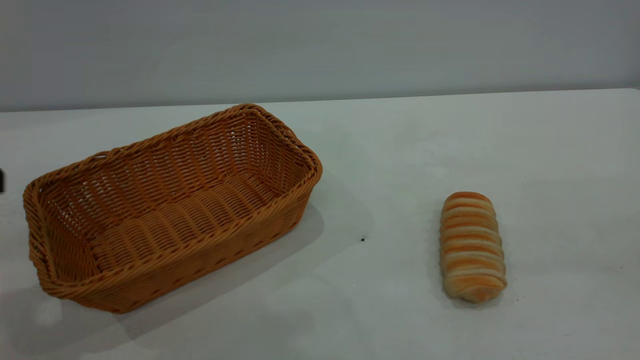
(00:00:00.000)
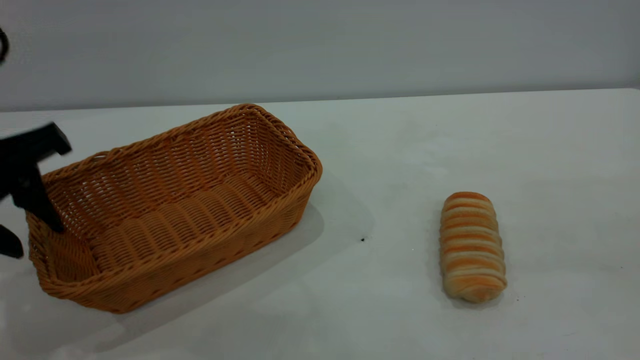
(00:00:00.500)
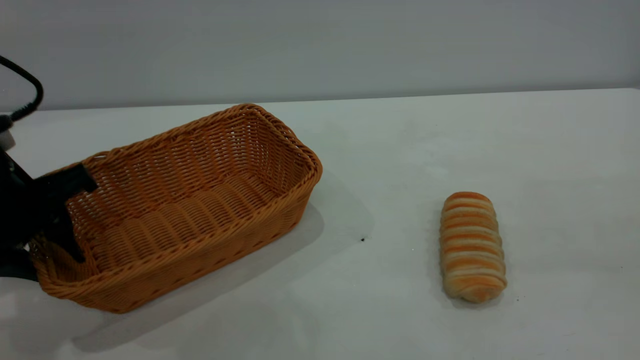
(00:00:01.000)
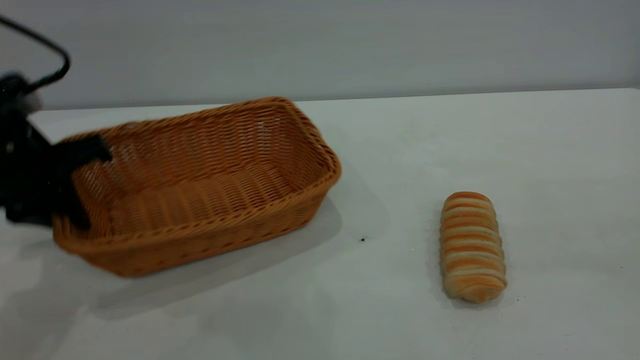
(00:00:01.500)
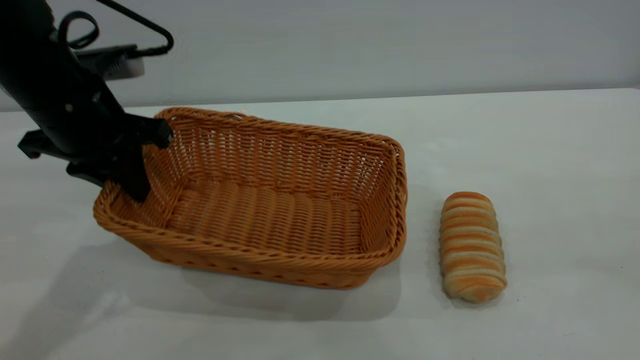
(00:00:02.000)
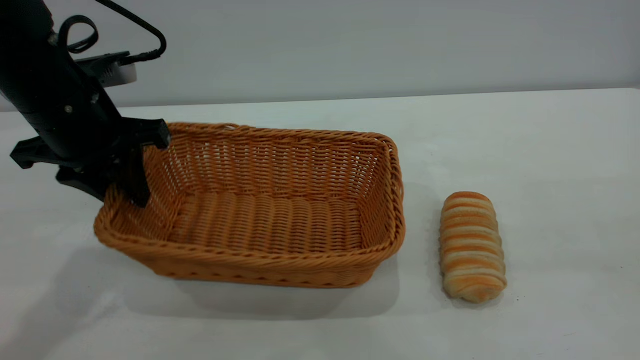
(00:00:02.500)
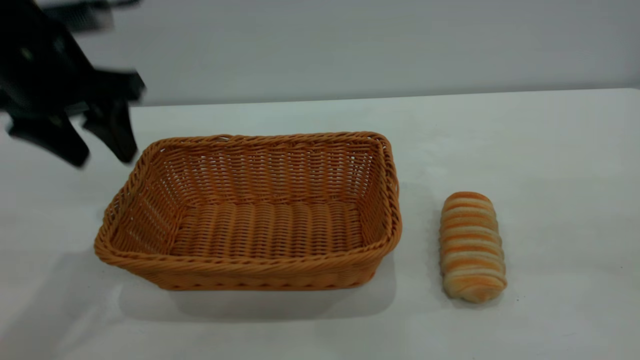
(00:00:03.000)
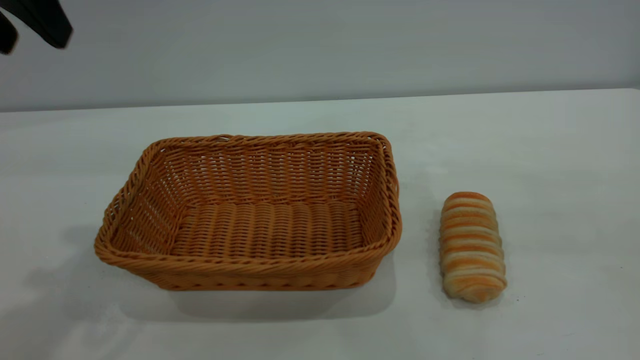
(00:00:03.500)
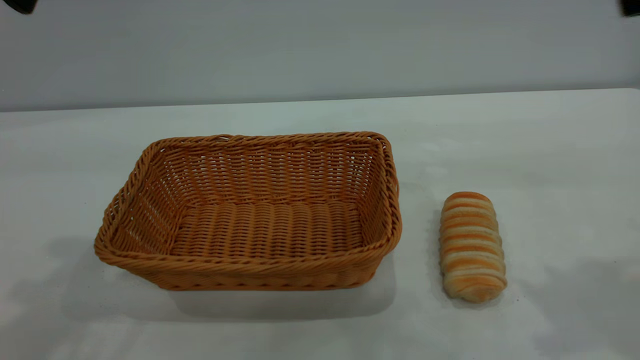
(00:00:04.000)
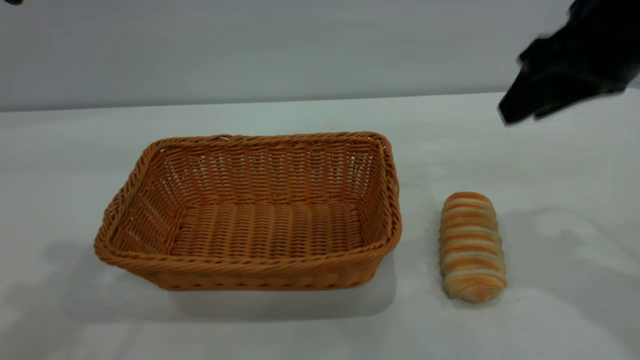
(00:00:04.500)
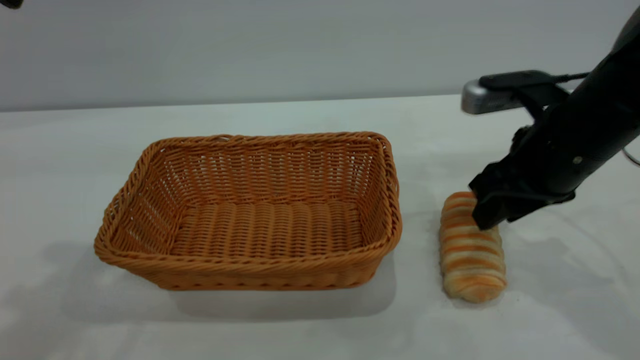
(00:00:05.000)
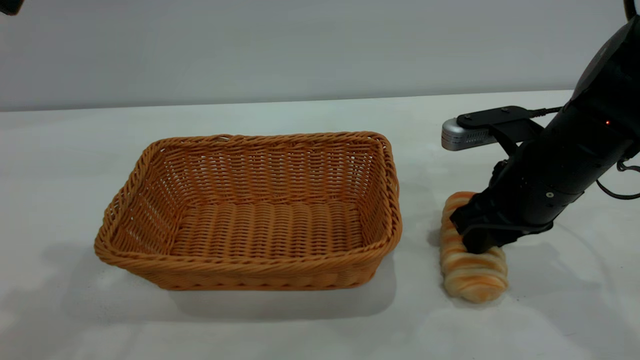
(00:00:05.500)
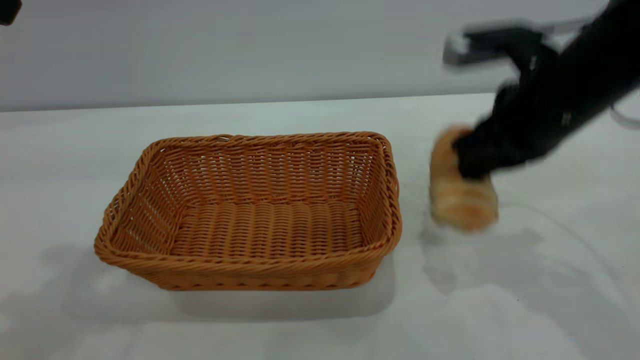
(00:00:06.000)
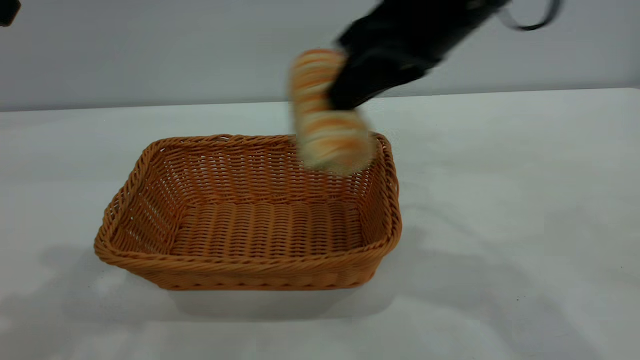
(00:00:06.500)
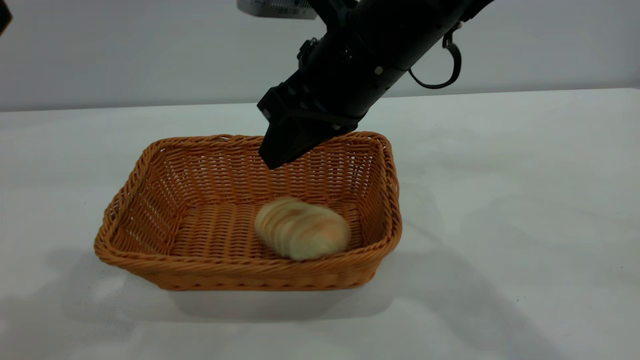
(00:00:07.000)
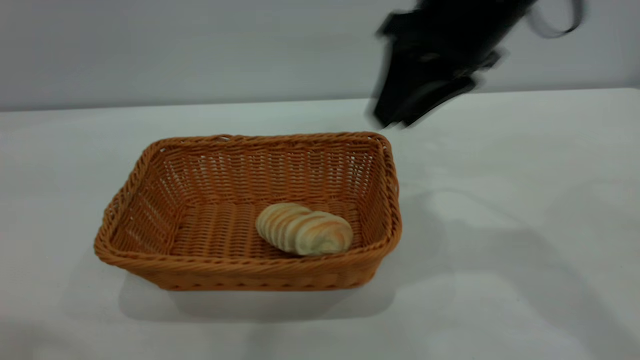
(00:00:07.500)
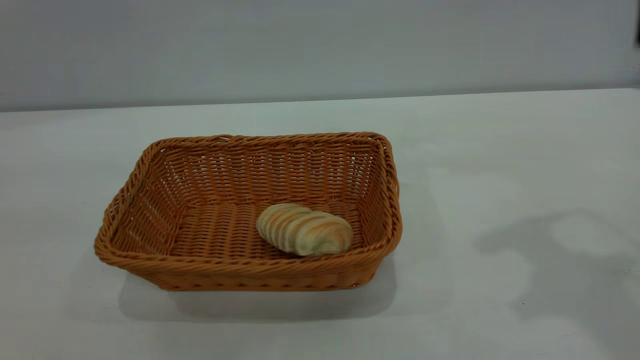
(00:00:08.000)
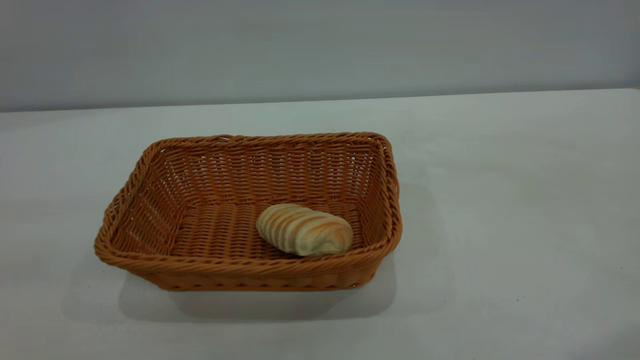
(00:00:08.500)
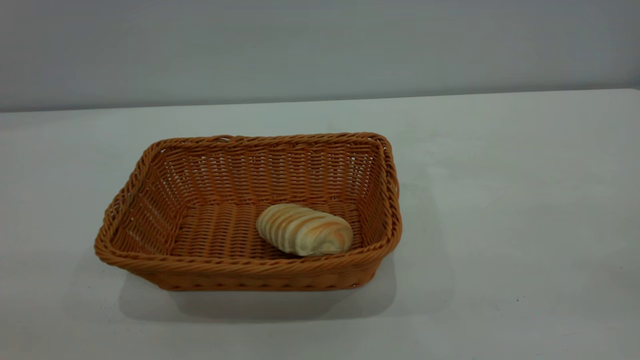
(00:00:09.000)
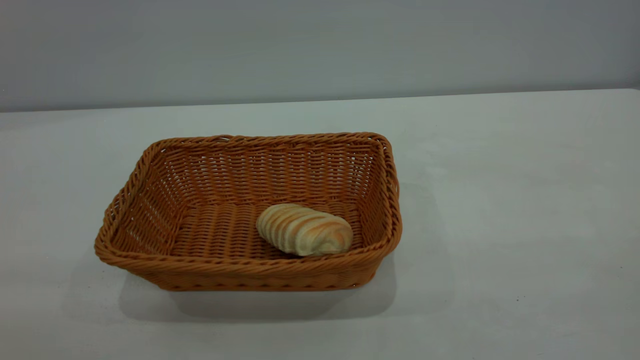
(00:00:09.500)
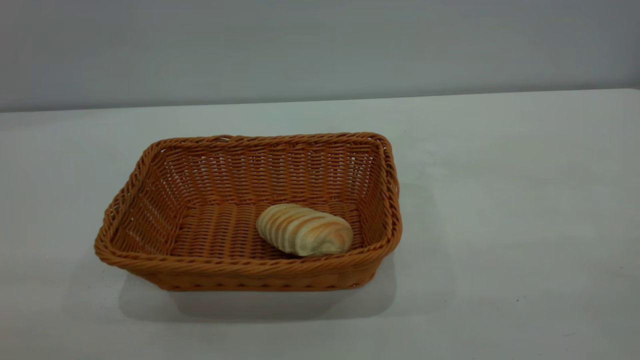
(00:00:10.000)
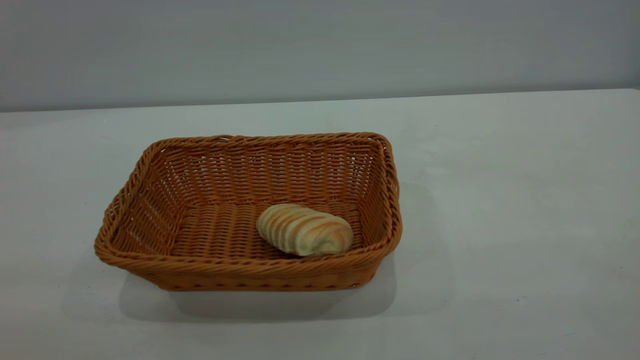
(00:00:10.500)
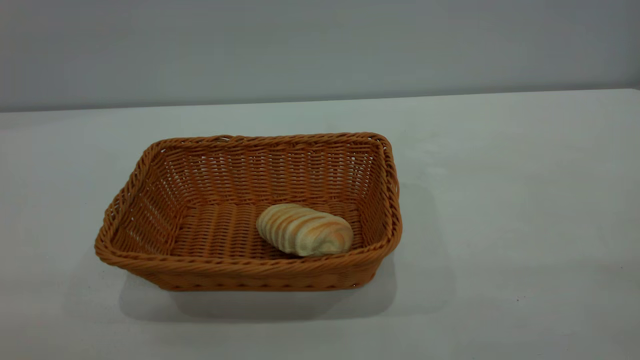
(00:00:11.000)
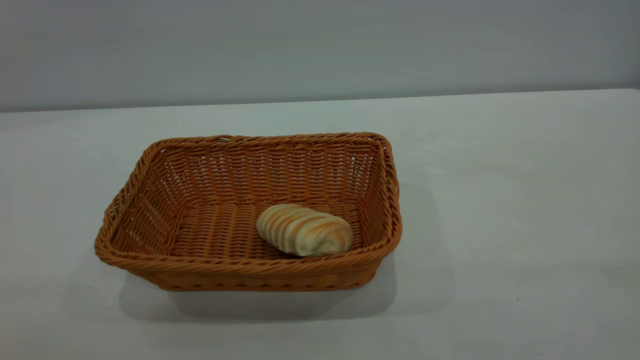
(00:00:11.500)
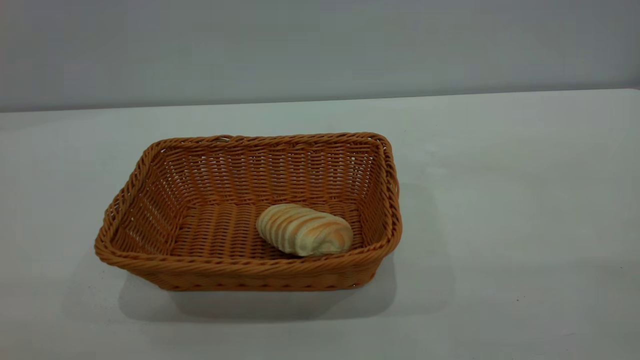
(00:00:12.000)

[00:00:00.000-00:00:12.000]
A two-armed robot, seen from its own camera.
Task of the whole recording: One hand grasps the yellow basket and places it in the middle of the table, while the other hand picks up the long bread and puts it into the yellow basket.
Step, 00:00:00.000 to 00:00:03.000: Move the basket to the center of view.
Step, 00:00:06.500 to 00:00:07.000: place the bread into the basket.
00:00:00.000 to 00:00:02.000: The left gripper moves forward and downward, approximately 15 cm, and closes up.
00:00:02.000 to 00:00:04.000: The left gripper heads upward and backward, covering approximately 20 cm, and opens its fingers. Meanwhile the right gripper is displaced forward by about 15 cm.
00:00:04.000 to 00:00:06.000: The right gripper travels downward, forward and to the left by about 20 cm, and closes.
00:00:06.000 to 00:00:08.000: The left gripper travels backward by about 15 cm; the right gripper is displaced upward by some 20 cm, travels to the left and back again, roughly 15 cm each way, and opens.
